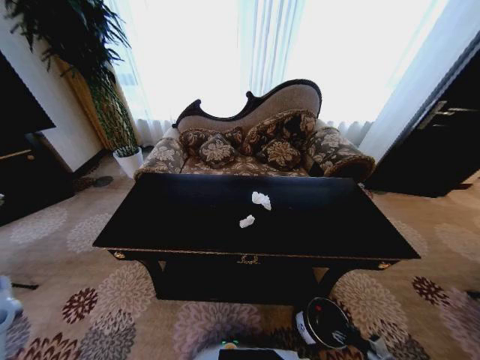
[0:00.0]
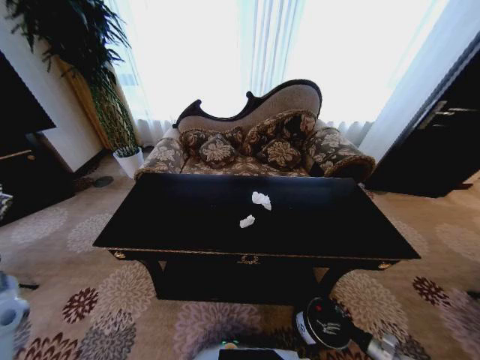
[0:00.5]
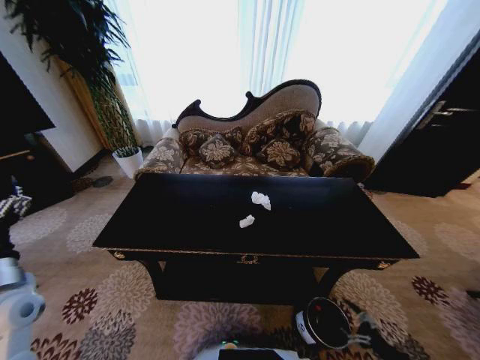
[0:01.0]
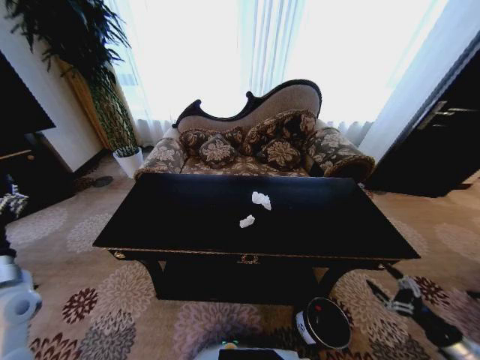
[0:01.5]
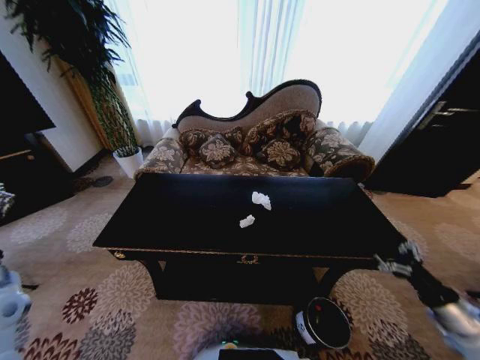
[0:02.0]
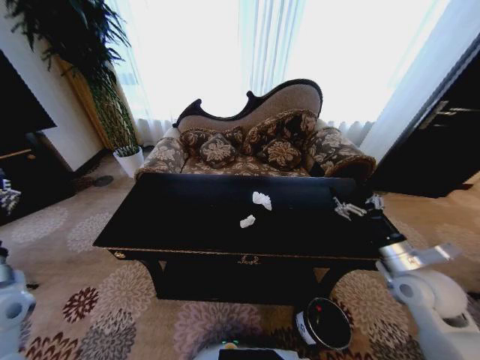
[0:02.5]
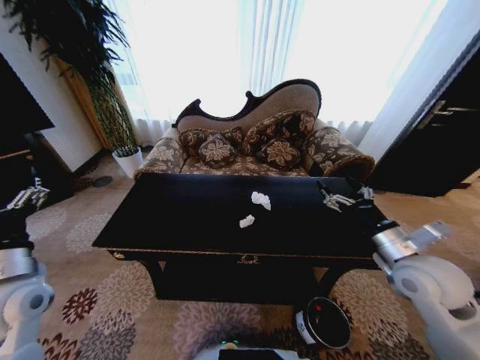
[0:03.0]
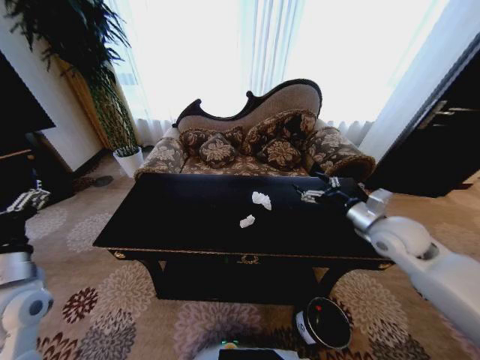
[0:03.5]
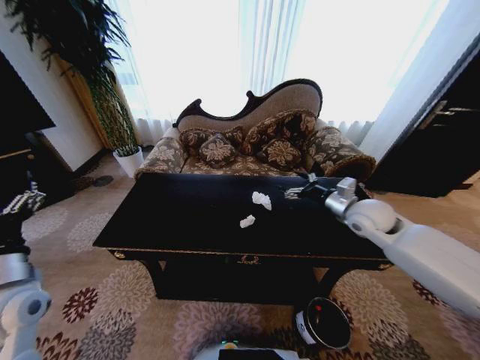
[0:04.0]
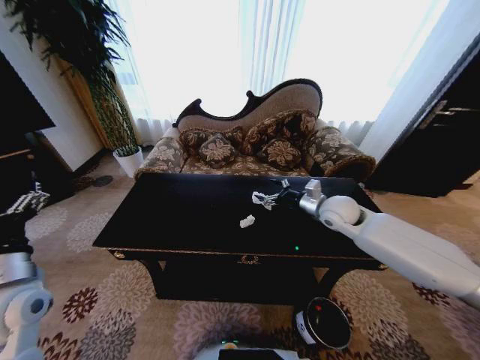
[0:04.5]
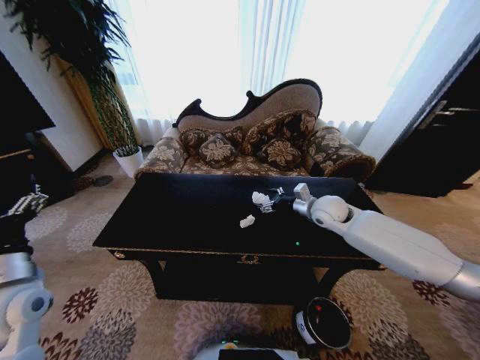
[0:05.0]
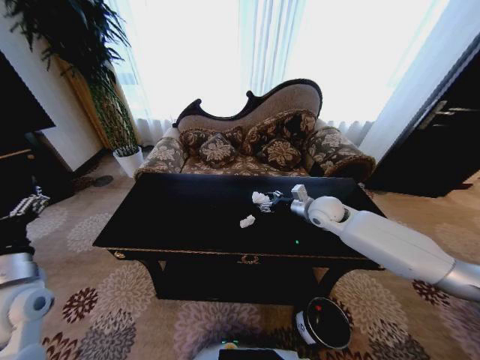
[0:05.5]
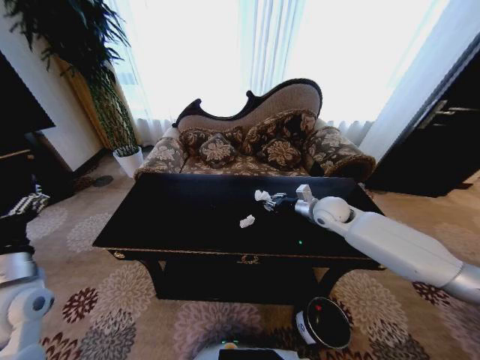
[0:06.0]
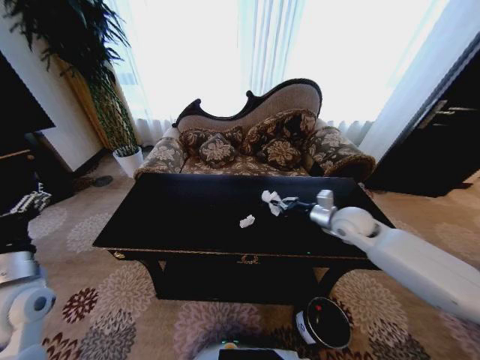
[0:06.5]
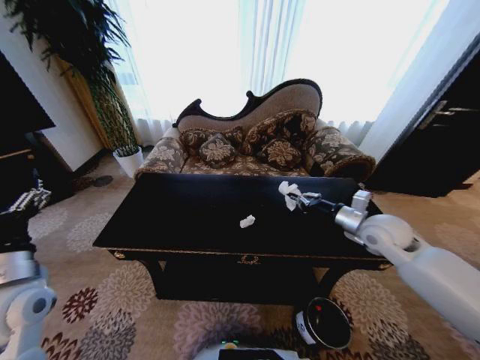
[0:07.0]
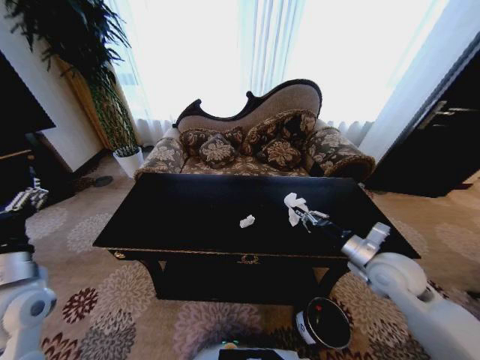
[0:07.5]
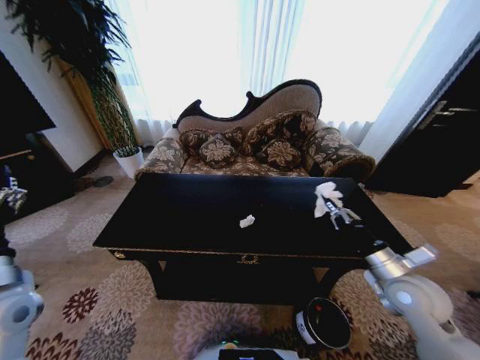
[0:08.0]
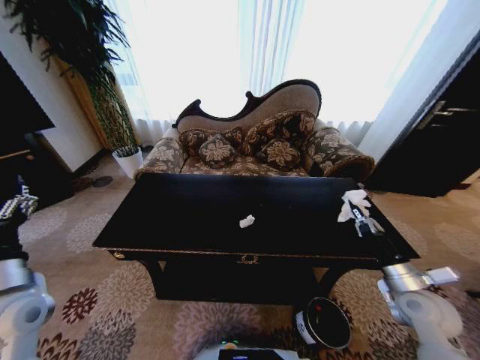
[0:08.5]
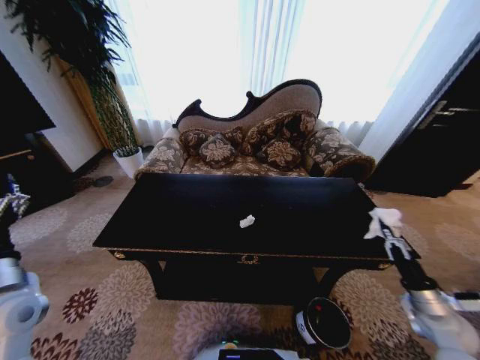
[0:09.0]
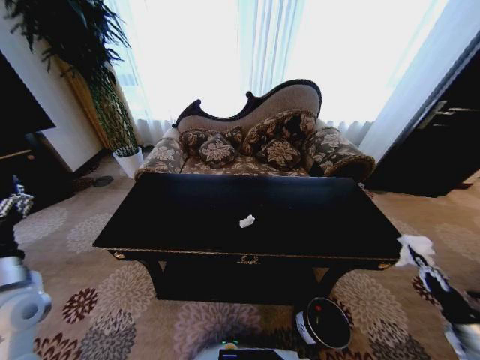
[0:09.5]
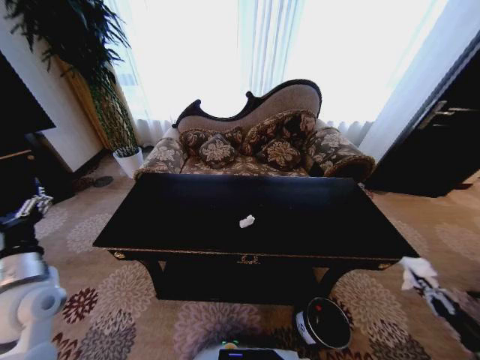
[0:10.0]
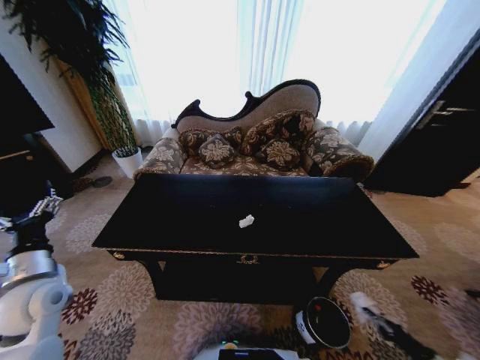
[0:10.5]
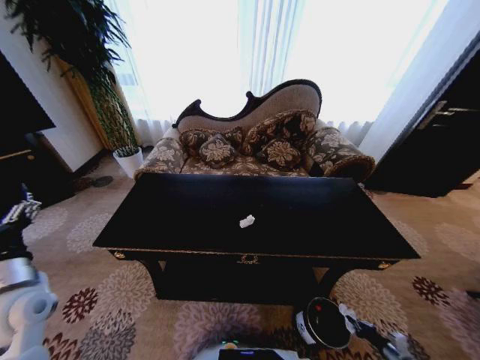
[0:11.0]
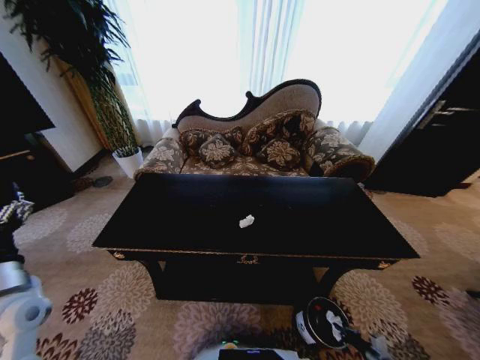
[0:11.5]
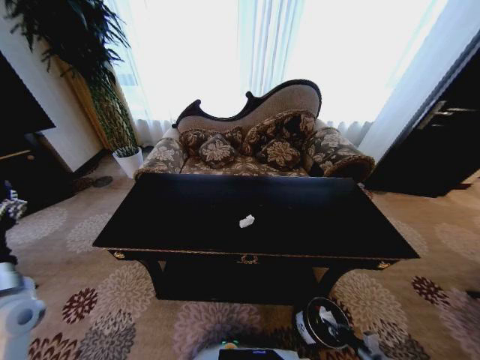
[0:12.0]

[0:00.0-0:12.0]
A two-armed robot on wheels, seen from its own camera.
Task of the whole recording: Move to the front of the table and place the trash on the table into the trash bin.
0:00.0 to 0:02.0: The right gripper moves upward, approximately 30 cm, and opens up.
0:02.0 to 0:04.0: The right gripper goes approximately 35 cm forward, to the left and upward.
0:04.0 to 0:06.0: The right gripper moves forward and to the left, approximately 10 cm, and closes.
0:06.0 to 0:08.0: The right gripper moves backward, approximately 25 cm.
0:08.0 to 0:10.0: The right gripper goes some 35 cm to the right, downward and backward.
0:10.0 to 0:12.0: The right gripper travels downward and to the left by roughly 25 cm.

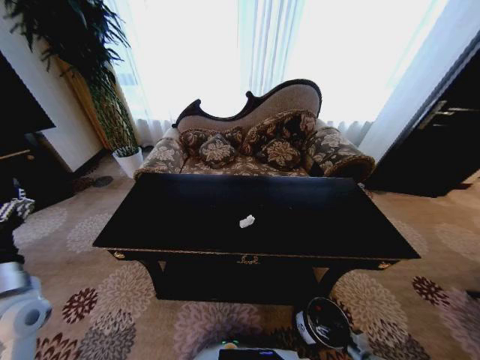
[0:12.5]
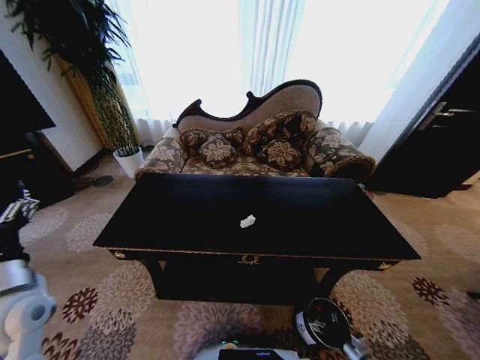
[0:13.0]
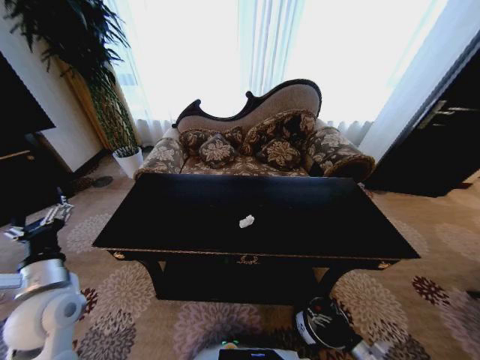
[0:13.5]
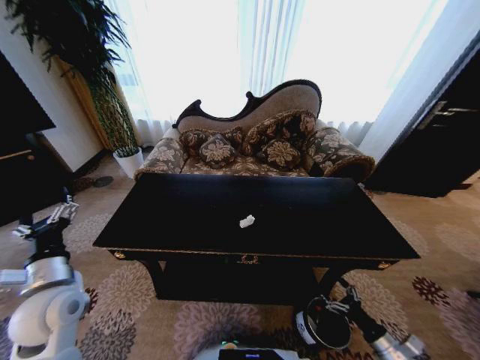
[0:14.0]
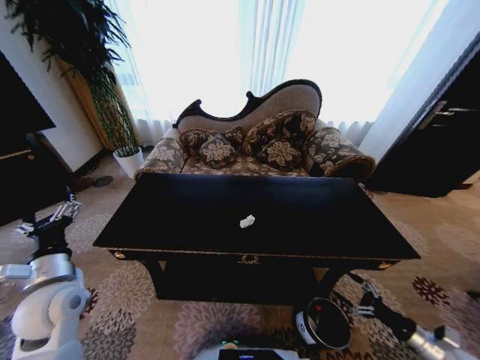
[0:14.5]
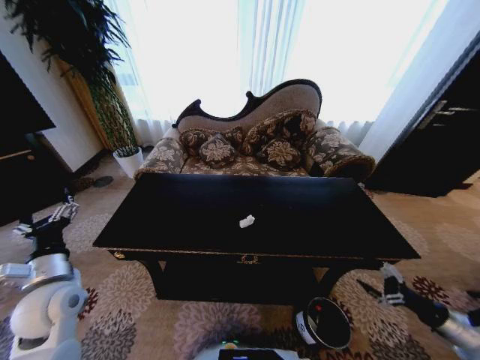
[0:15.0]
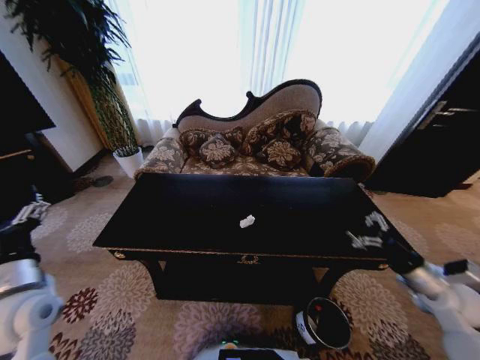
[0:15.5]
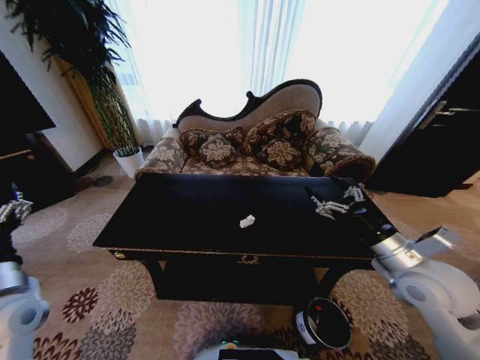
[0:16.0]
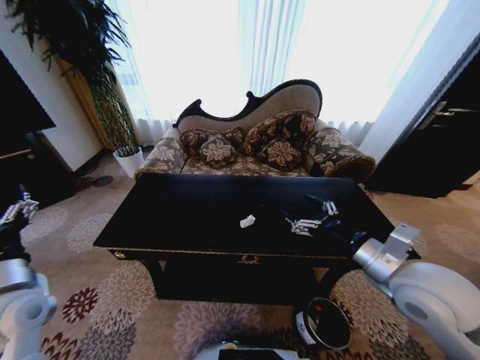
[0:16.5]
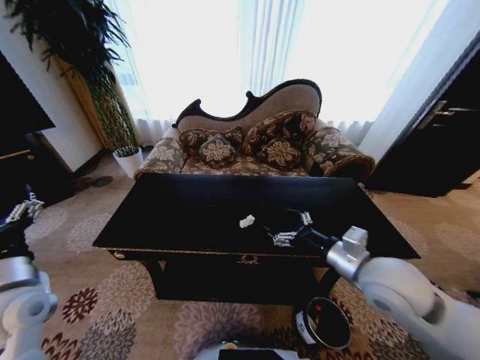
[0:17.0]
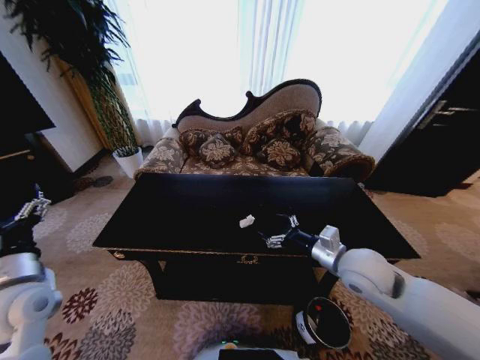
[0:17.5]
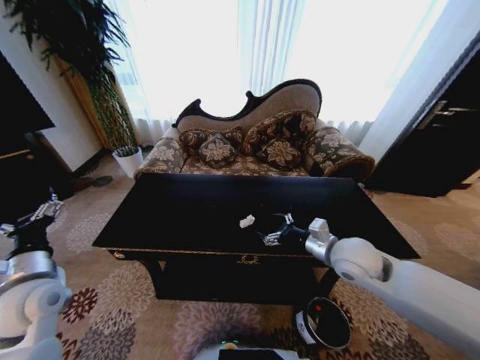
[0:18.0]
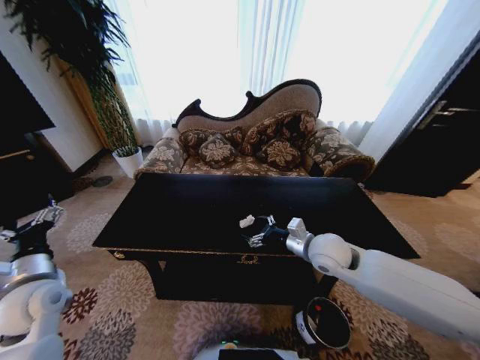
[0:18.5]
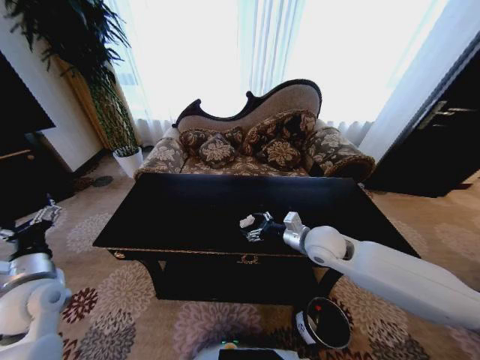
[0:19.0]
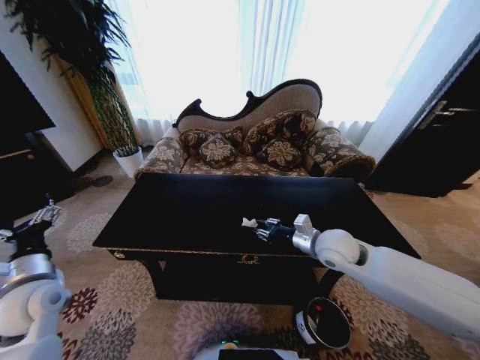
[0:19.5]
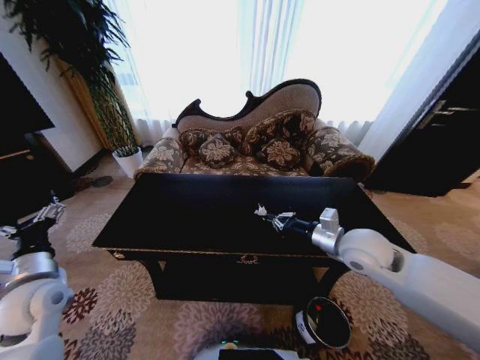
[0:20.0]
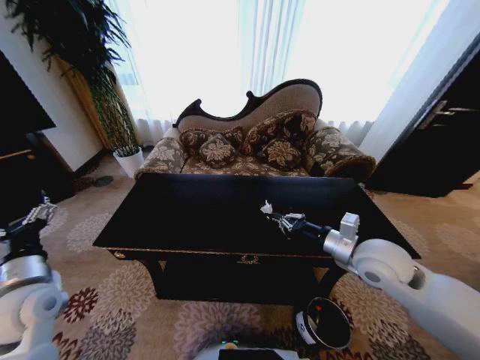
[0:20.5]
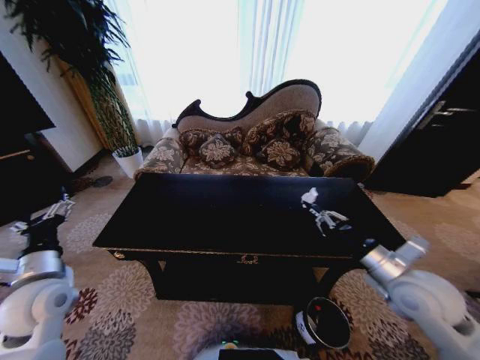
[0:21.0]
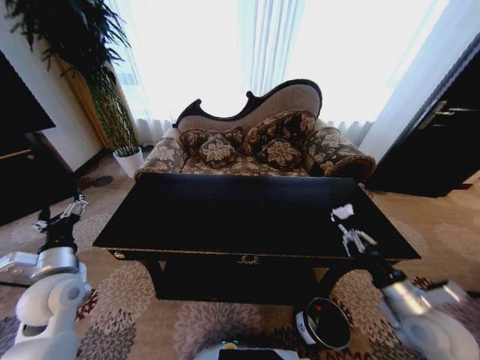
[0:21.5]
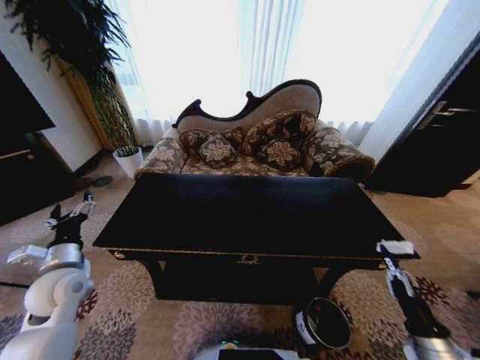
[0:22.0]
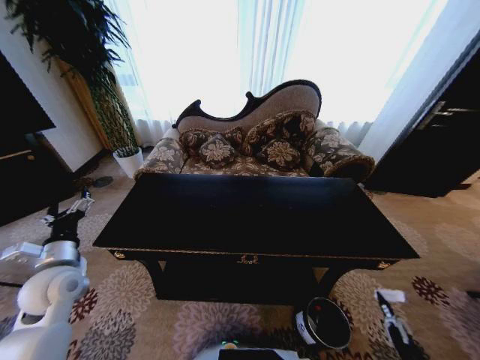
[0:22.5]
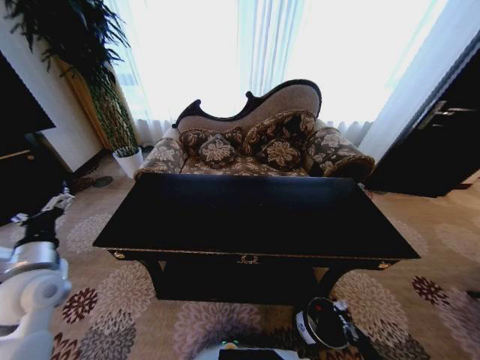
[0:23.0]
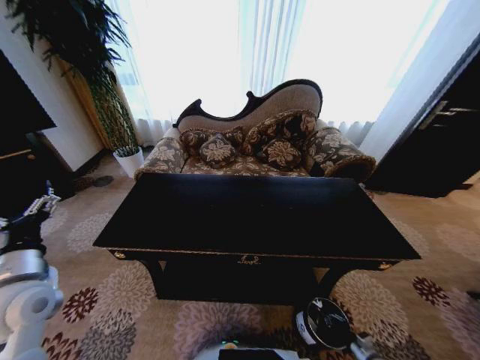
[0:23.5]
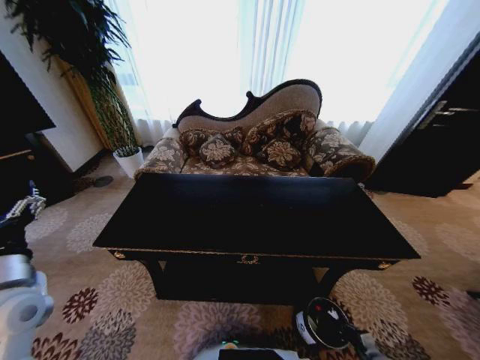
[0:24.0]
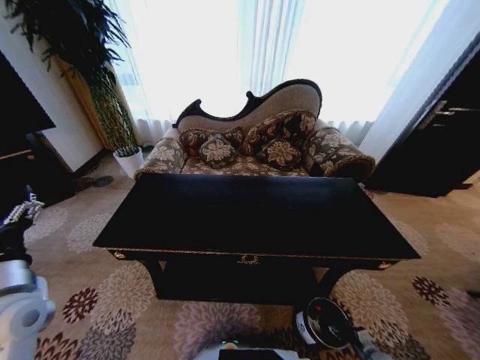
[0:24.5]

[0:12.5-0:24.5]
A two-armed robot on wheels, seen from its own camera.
Task of the whole recording: Move to the front of the table and place the trash on the table into the trash bin.
0:12.5 to 0:14.5: The right gripper goes some 25 cm upward; the left gripper changes place by approximately 5 cm.
0:14.5 to 0:16.5: The right gripper shifts some 40 cm upward and to the left; the left gripper shifts by approximately 5 cm.
0:16.5 to 0:18.5: The right gripper goes roughly 15 cm forward, downward and to the left.
0:18.5 to 0:20.5: The right gripper heads to the right, upward and backward, covering some 10 cm, and closes its fingers.
0:20.5 to 0:22.5: The right gripper is displaced downward, backward and to the right by some 40 cm.
0:22.5 to 0:24.5: The left gripper moves backward, roughly 5 cm, while the right gripper goes some 20 cm downward and forward, and opens up.

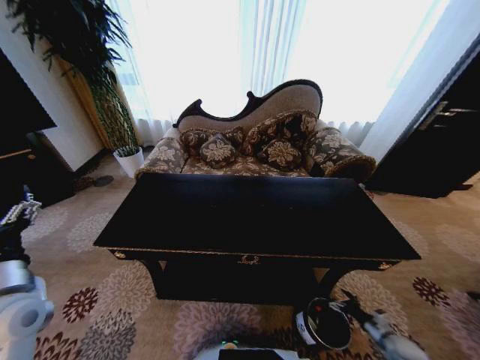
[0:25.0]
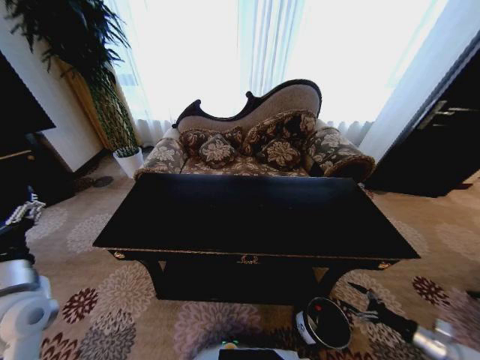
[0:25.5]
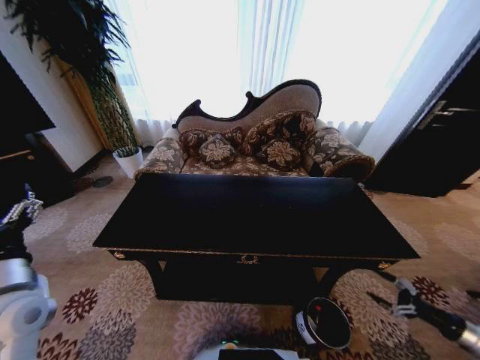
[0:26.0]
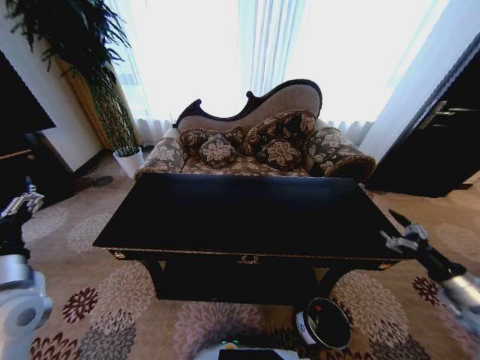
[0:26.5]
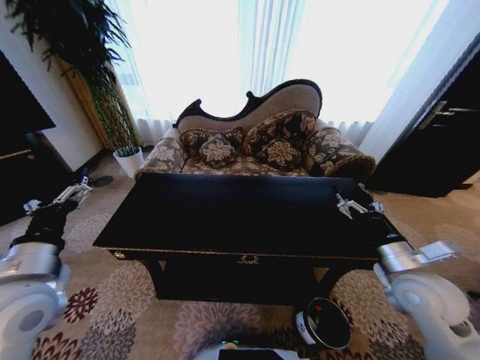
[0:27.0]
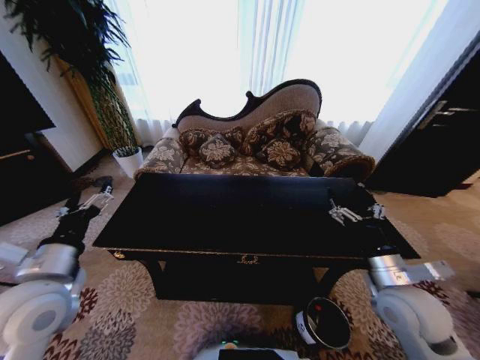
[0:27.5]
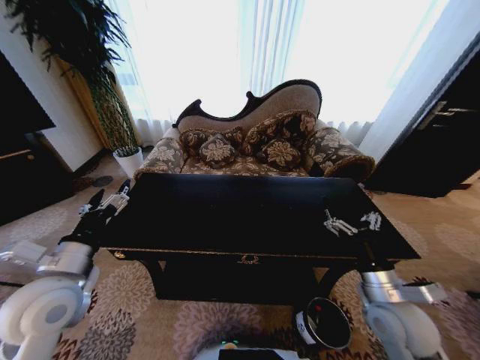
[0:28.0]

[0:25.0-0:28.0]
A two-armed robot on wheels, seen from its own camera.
Task of the whole recording: Move to the front of the table and place the trash on the table into the trash bin.
0:25.0 to 0:26.5: The right gripper goes some 30 cm upward.
0:26.5 to 0:28.0: The left gripper heads to the right, covering approximately 5 cm. Meanwhile the right gripper travels to the left by approximately 25 cm.
